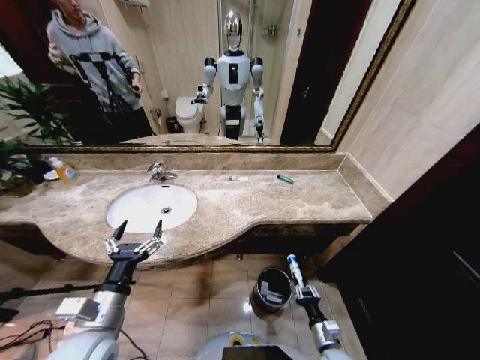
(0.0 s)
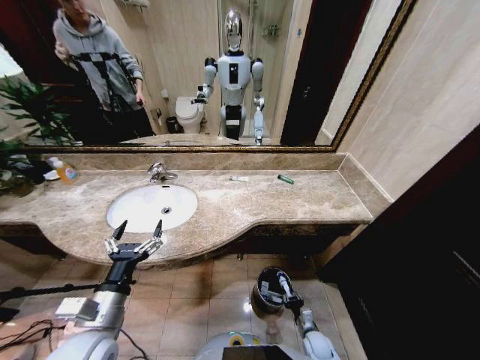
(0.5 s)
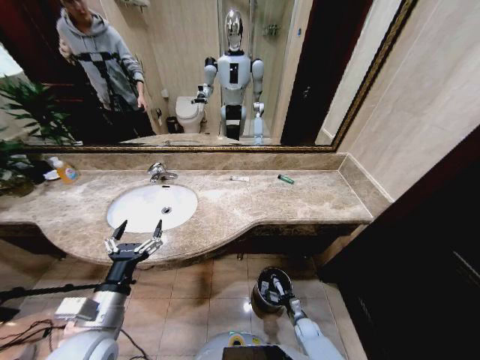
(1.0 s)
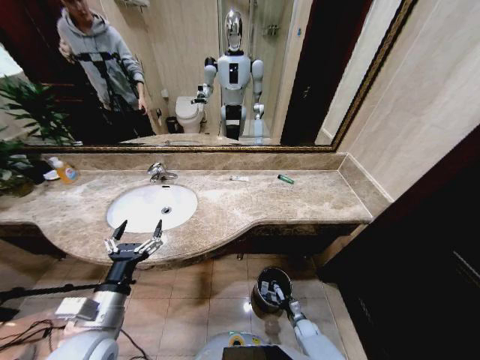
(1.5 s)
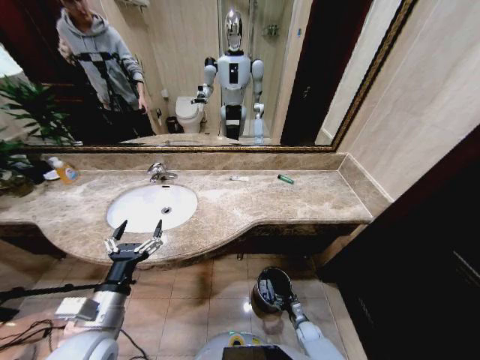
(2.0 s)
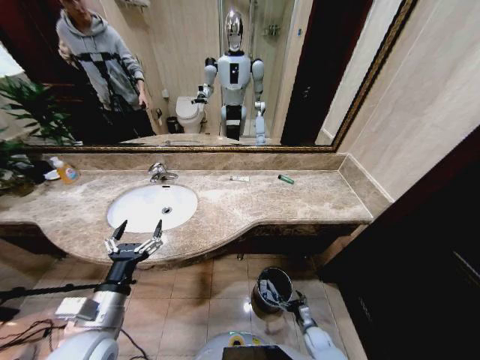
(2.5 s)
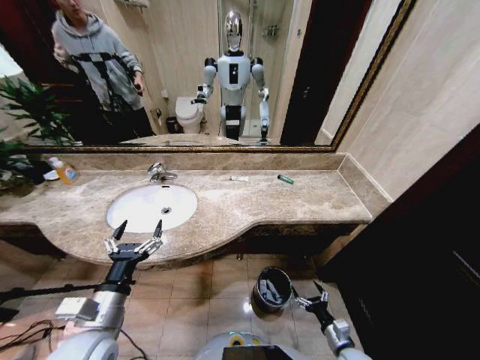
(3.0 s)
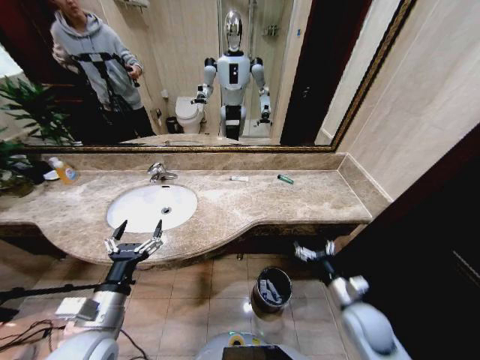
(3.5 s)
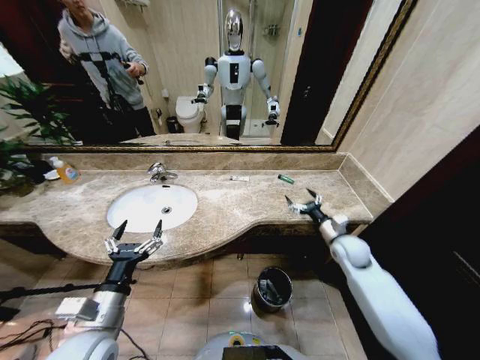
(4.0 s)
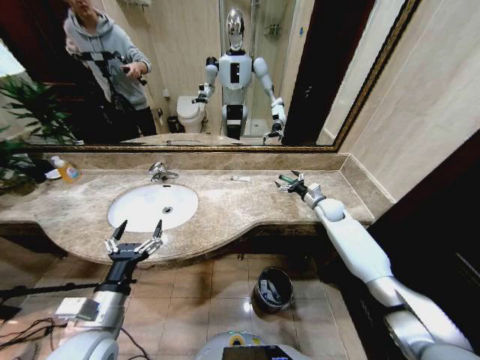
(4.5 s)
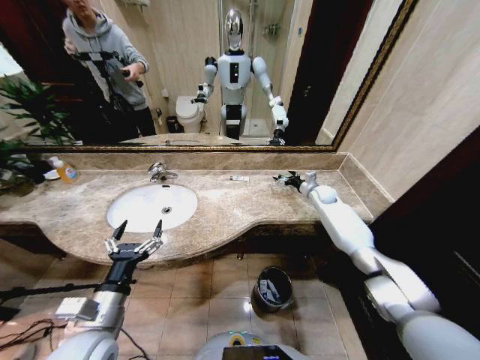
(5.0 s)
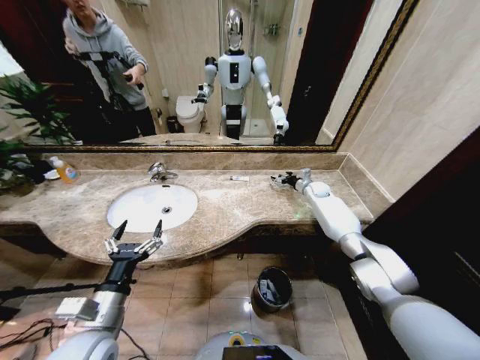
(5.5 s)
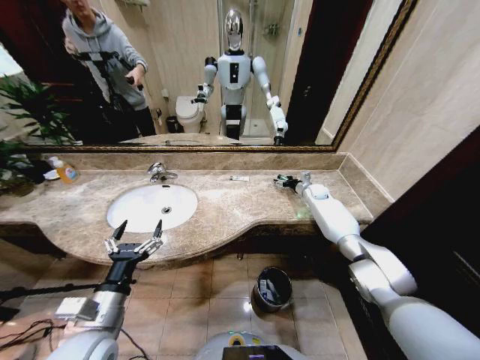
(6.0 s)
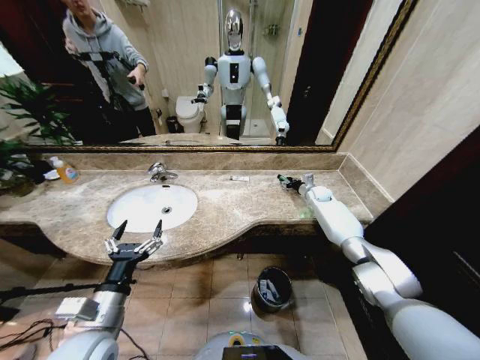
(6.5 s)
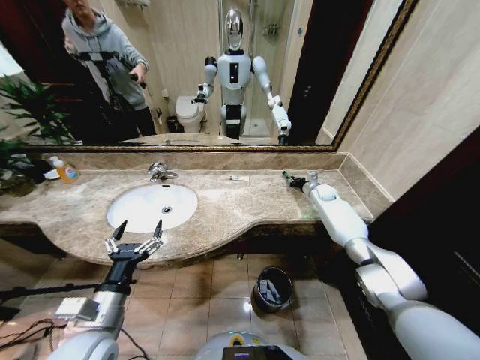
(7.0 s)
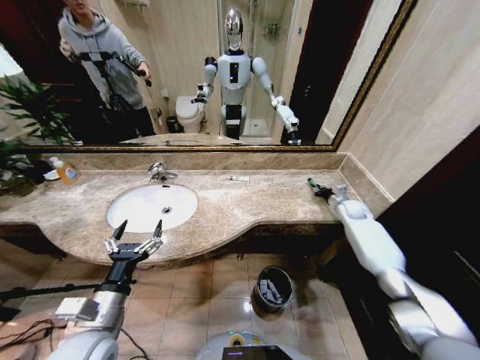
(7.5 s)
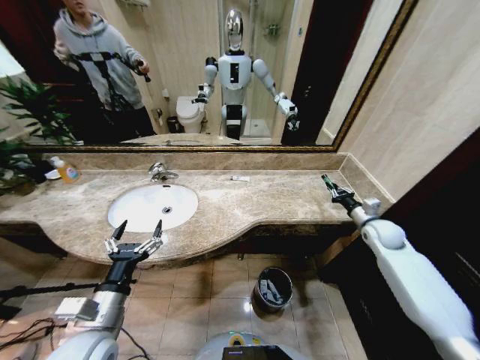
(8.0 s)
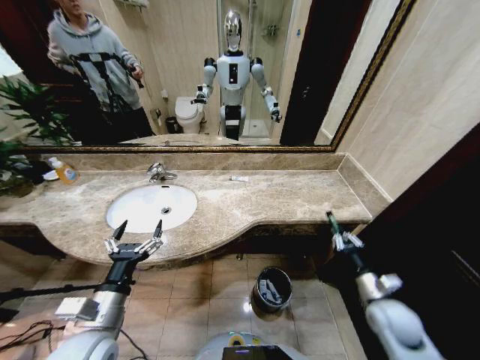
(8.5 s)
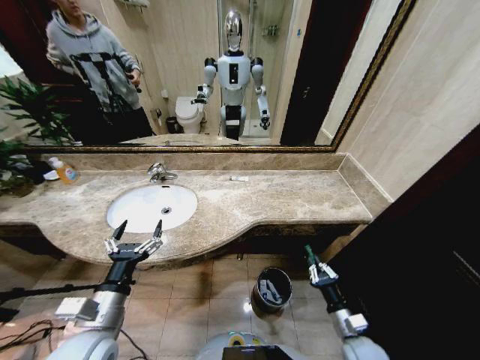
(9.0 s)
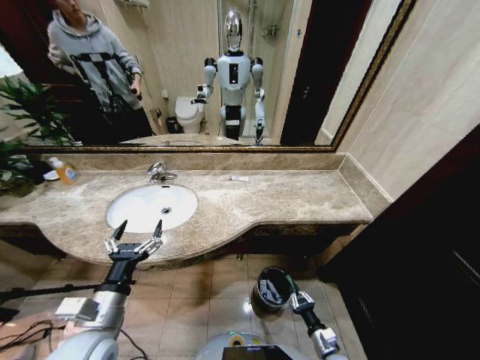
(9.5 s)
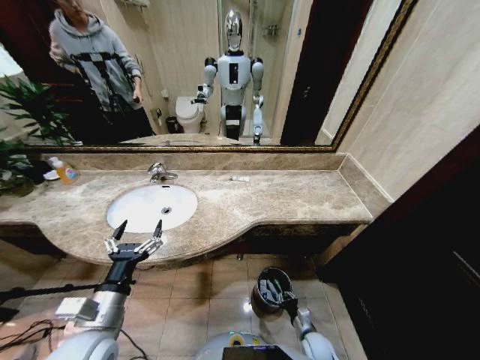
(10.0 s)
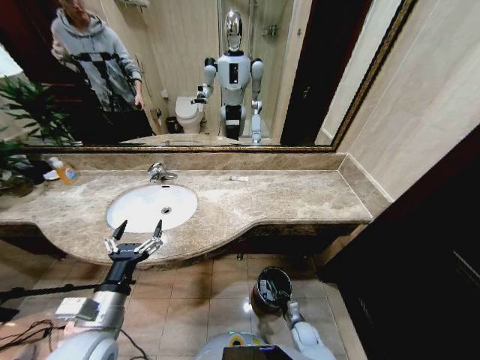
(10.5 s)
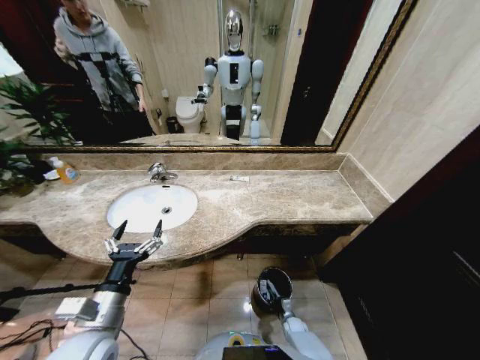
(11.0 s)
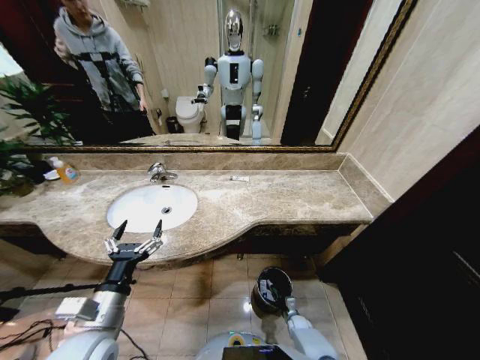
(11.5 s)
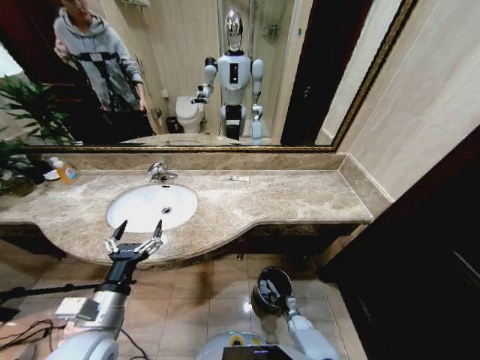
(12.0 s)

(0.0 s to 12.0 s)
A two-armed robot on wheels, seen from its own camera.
Task of the whole recording: Pick up the trash from the sink and place it in the trash bin.
0.0 s - 2.0 s: The right gripper travels downward and forward by some 20 cm, and opens its fingers.
2.0 s - 4.0 s: The right gripper is displaced upward and forward by some 40 cm.
4.0 s - 6.0 s: The right gripper travels forward by approximately 25 cm.
6.0 s - 8.0 s: The right gripper goes roughly 25 cm backward and to the right, and closes up.
8.0 s - 10.0 s: The right gripper moves downward, backward and to the left, some 40 cm.
10.0 s - 12.0 s: The right gripper is displaced downward and forward by some 15 cm.

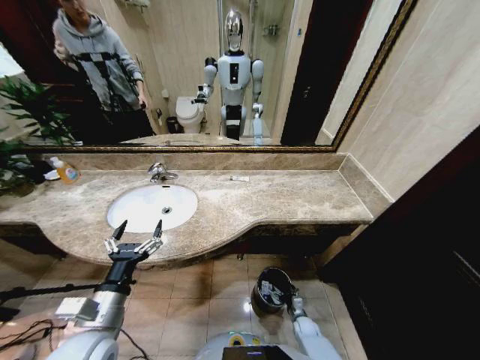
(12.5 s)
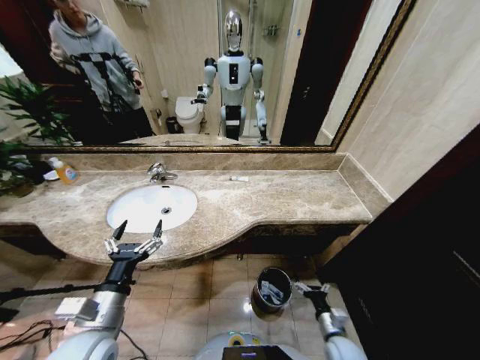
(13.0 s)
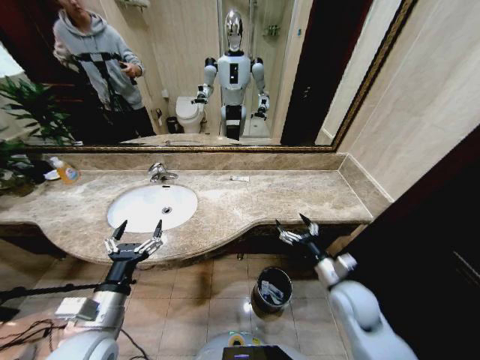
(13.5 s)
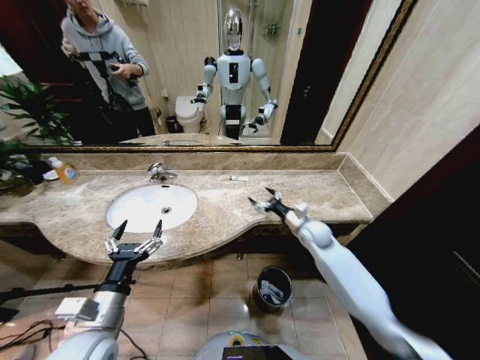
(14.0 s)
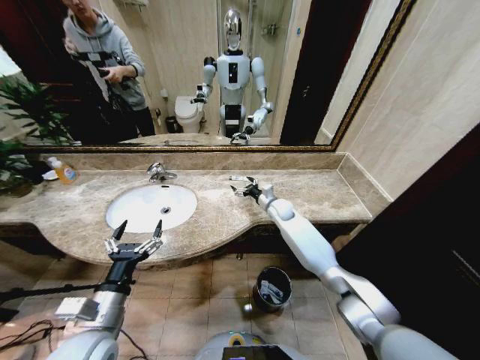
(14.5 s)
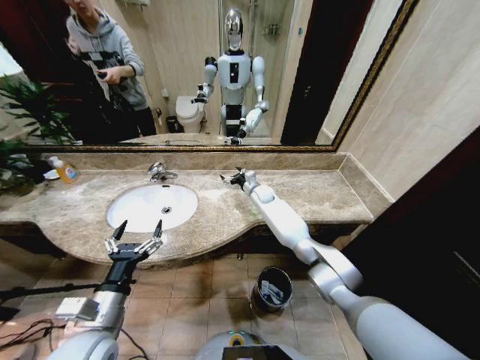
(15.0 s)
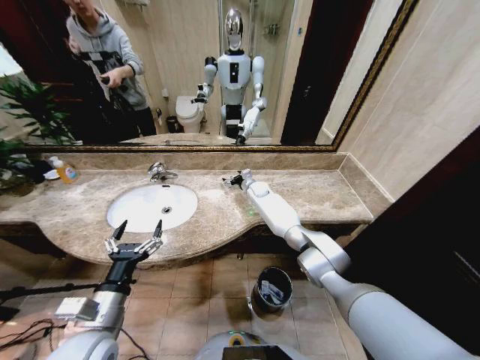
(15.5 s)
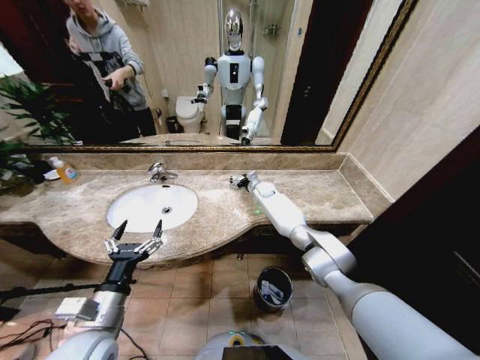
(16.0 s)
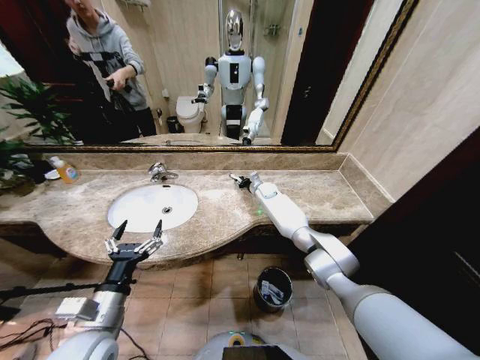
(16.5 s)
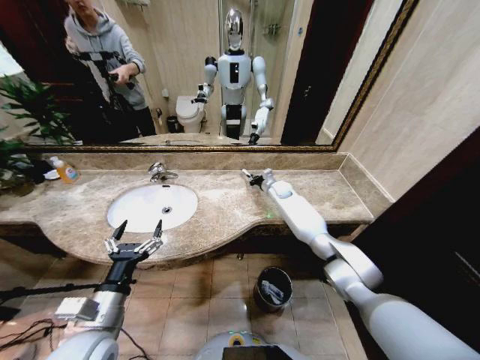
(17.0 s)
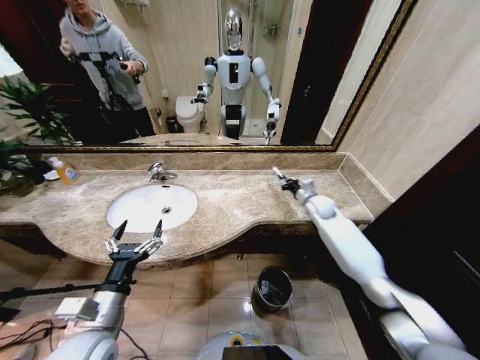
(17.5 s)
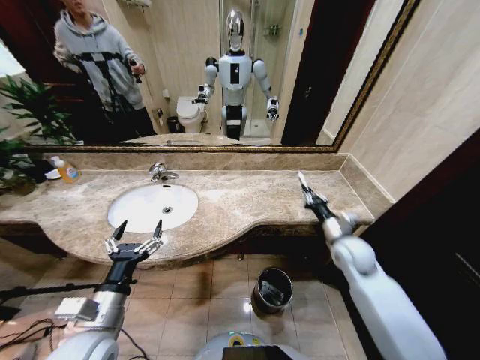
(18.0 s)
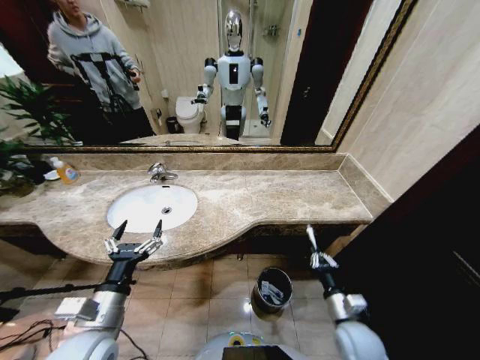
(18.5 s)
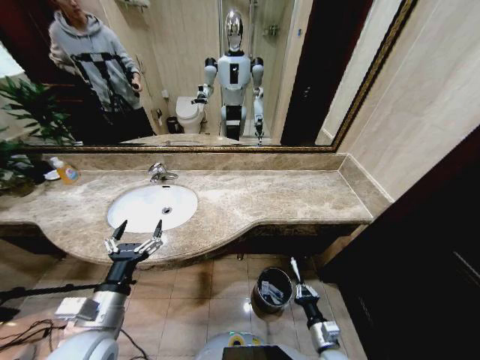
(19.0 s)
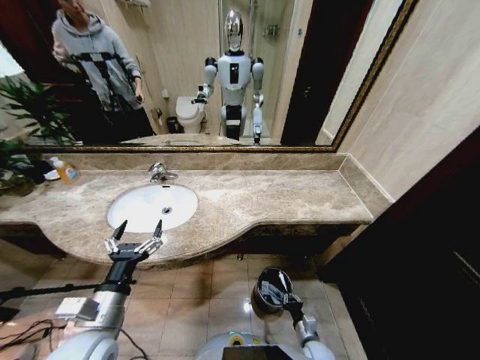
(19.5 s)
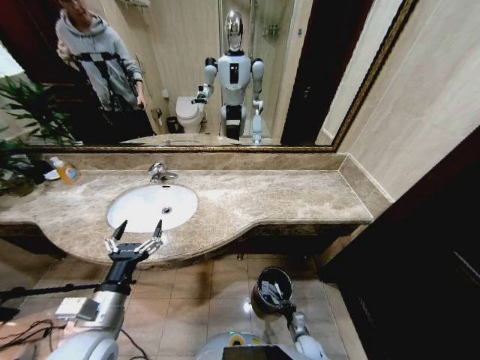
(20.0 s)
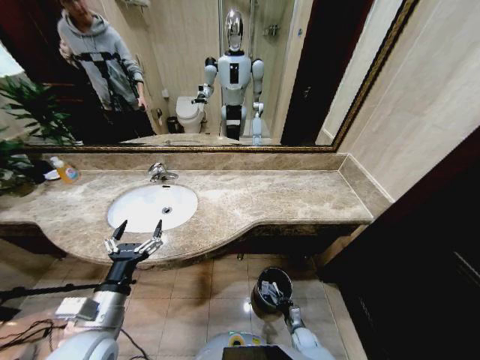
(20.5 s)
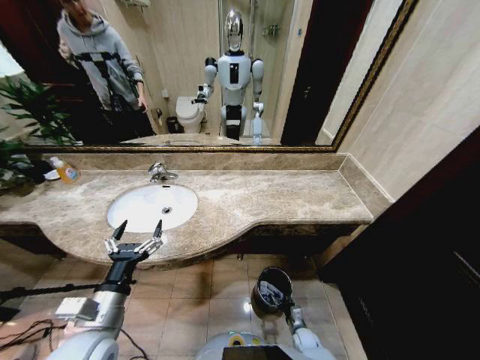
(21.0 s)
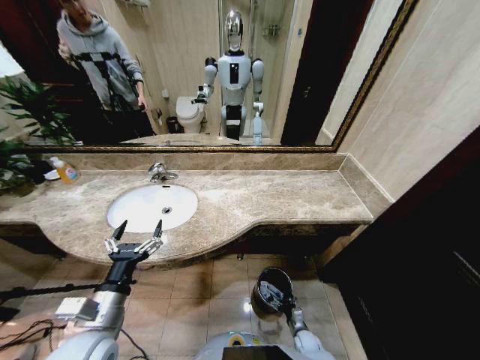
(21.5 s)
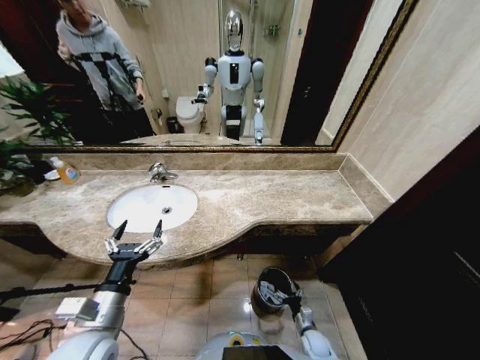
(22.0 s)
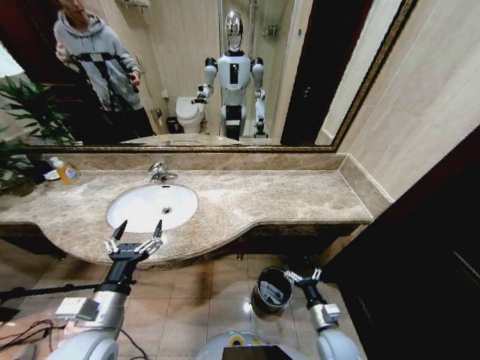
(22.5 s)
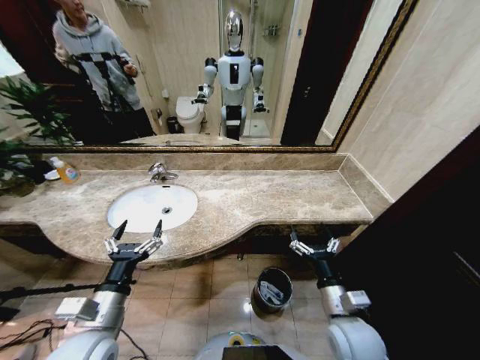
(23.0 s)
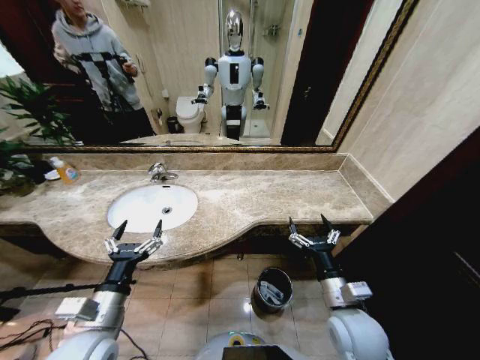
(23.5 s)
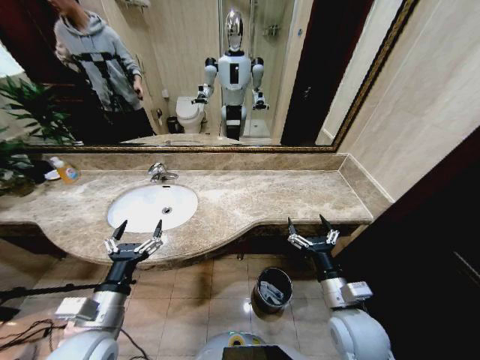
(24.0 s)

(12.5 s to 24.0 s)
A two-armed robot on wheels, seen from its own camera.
Task of the whole recording: Pick up the trash from the sink and place it in the trash bin.
12.5 s - 14.5 s: The right gripper shifts approximately 50 cm upward and forward.
14.5 s - 16.5 s: The right gripper heads forward, covering roughly 10 cm, and closes up.
16.5 s - 18.5 s: The right gripper shifts roughly 50 cm backward, and closes up.
18.5 s - 20.0 s: The right gripper shifts roughly 30 cm downward.
20.0 s - 22.0 s: The right gripper moves upward, approximately 5 cm, and opens up.
22.0 s - 24.0 s: The right gripper travels upward by some 35 cm.

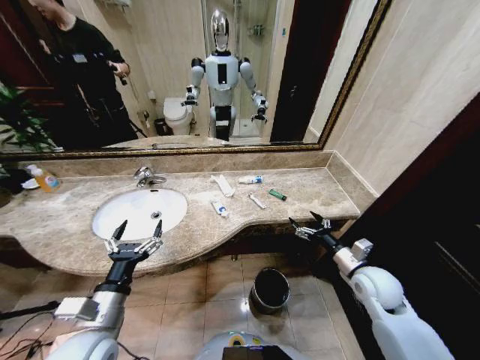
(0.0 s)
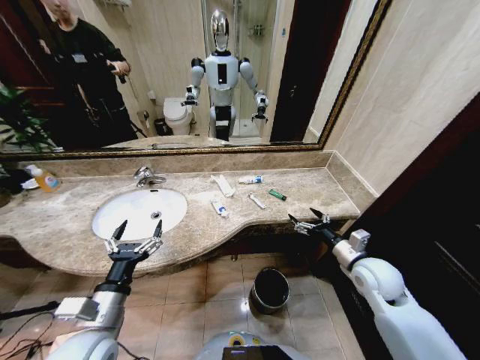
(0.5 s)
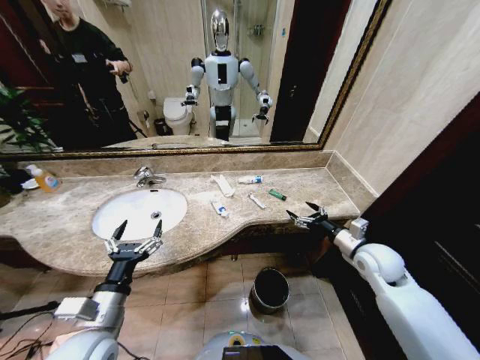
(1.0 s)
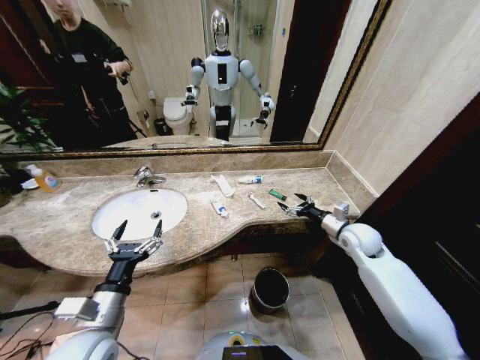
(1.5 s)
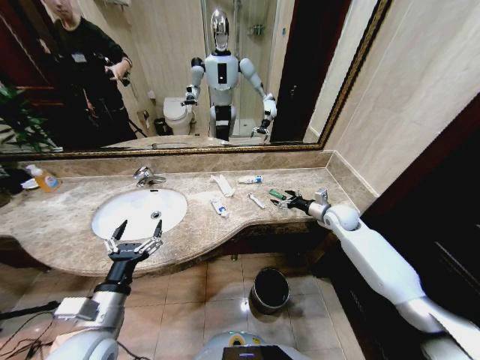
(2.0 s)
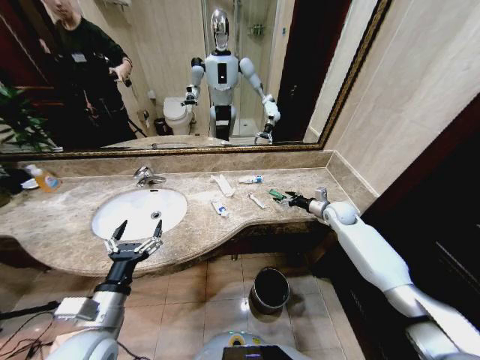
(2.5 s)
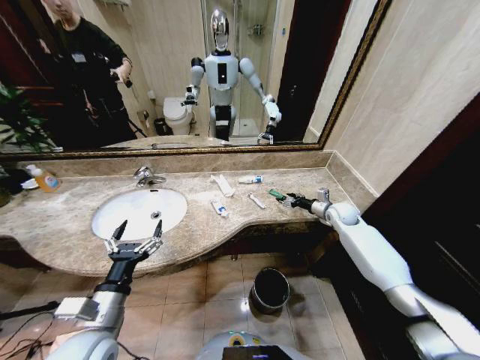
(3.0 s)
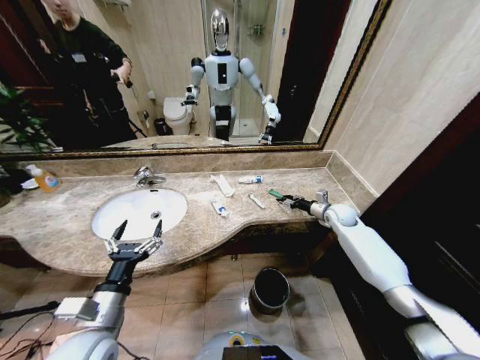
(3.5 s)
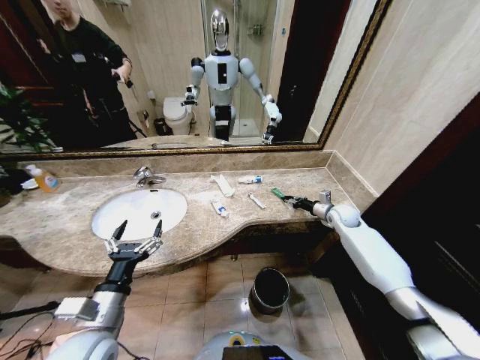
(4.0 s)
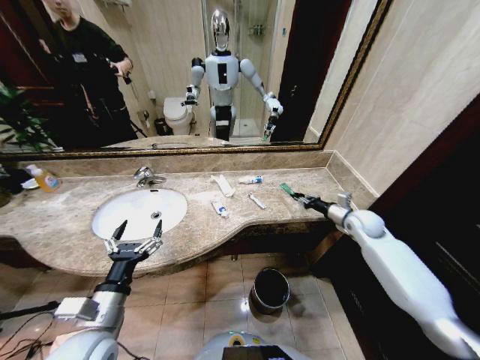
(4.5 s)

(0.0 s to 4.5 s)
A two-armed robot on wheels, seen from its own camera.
Task of the whole recording: Pick up the trash from the sink and place it in the trash bin.
2.0 s - 4.5 s: The right gripper heads to the right, covering about 5 cm, and closes.
